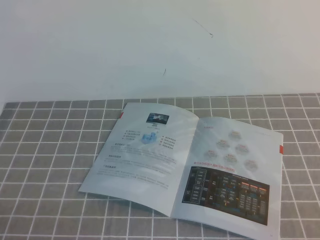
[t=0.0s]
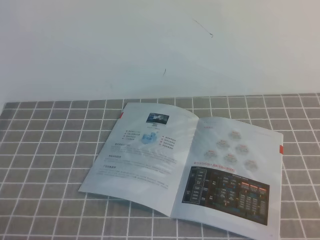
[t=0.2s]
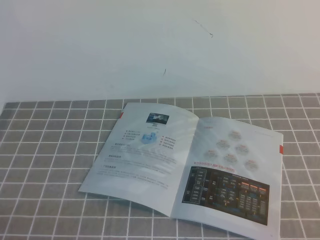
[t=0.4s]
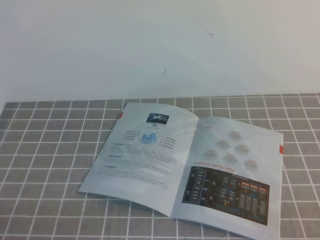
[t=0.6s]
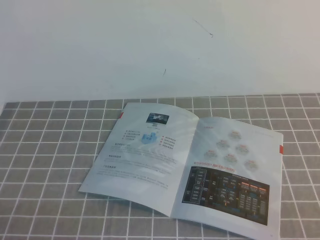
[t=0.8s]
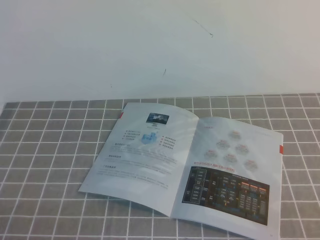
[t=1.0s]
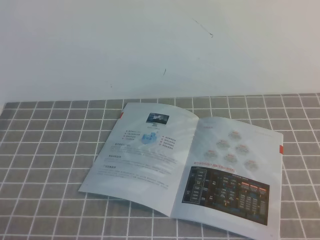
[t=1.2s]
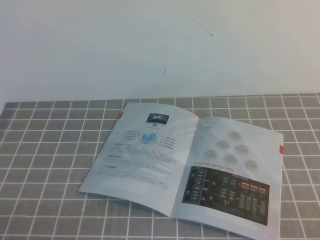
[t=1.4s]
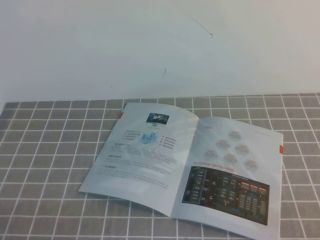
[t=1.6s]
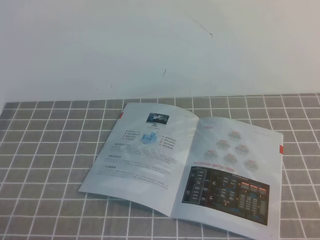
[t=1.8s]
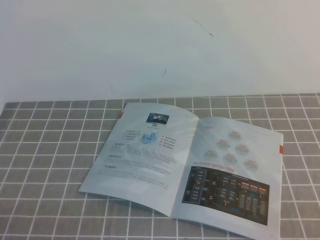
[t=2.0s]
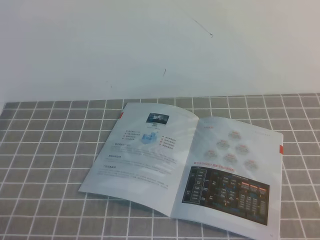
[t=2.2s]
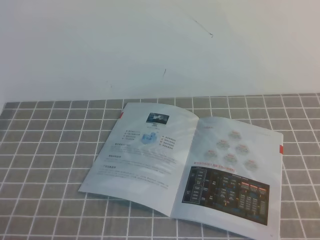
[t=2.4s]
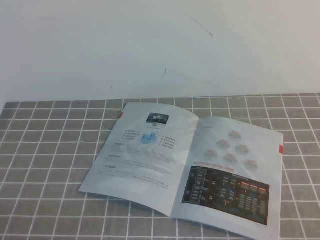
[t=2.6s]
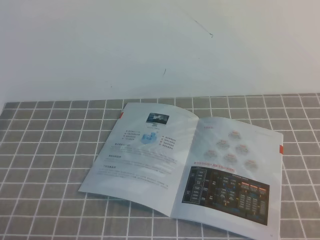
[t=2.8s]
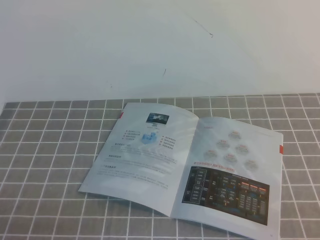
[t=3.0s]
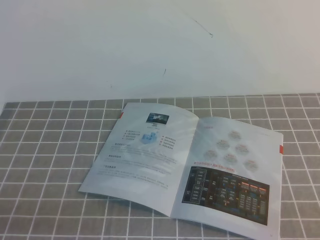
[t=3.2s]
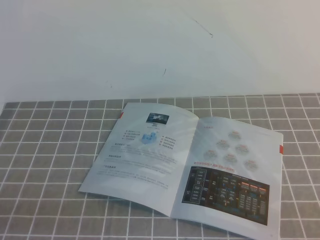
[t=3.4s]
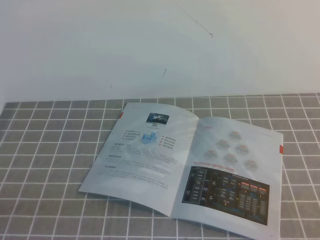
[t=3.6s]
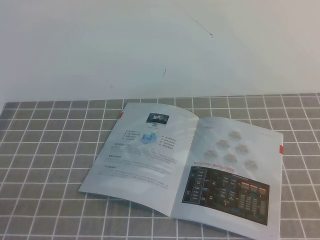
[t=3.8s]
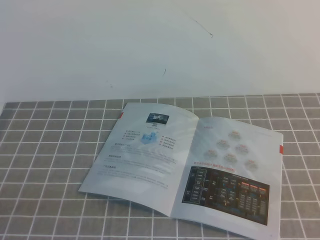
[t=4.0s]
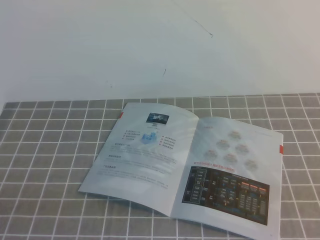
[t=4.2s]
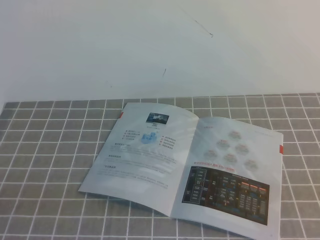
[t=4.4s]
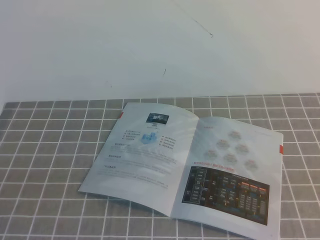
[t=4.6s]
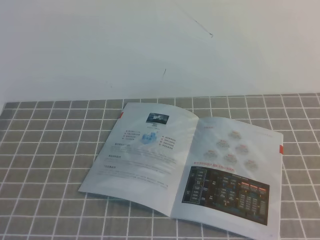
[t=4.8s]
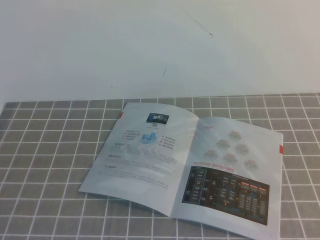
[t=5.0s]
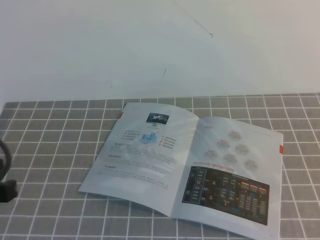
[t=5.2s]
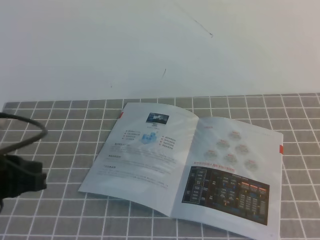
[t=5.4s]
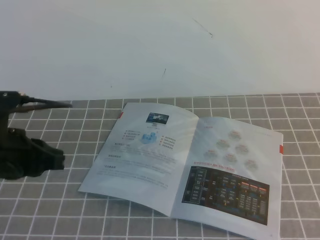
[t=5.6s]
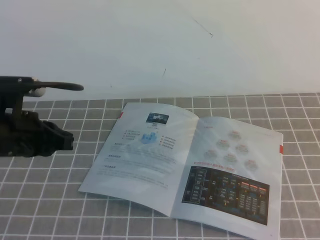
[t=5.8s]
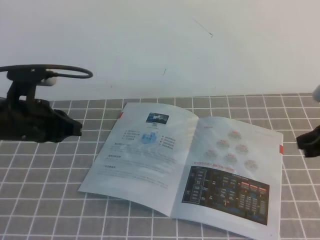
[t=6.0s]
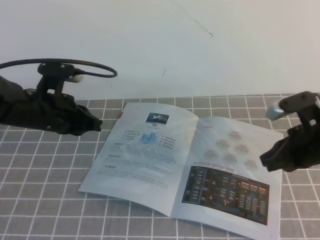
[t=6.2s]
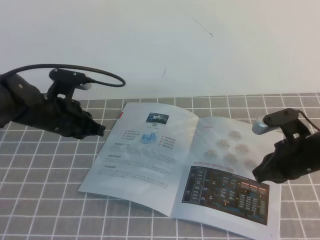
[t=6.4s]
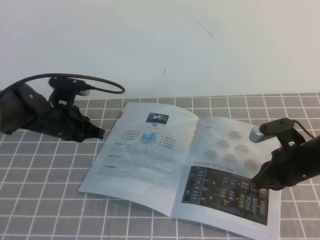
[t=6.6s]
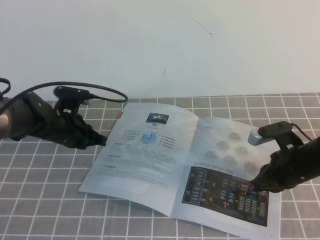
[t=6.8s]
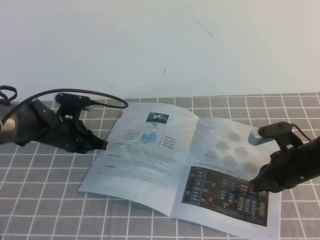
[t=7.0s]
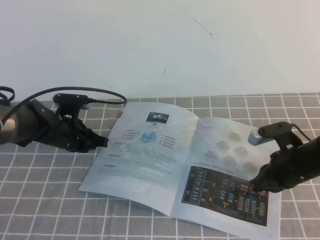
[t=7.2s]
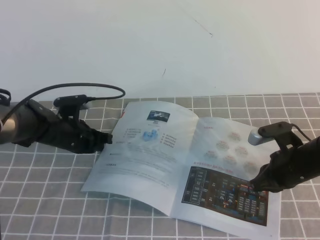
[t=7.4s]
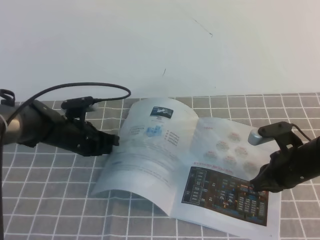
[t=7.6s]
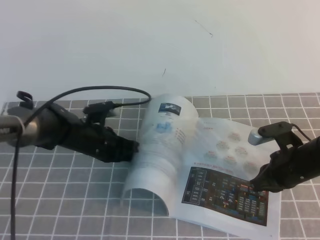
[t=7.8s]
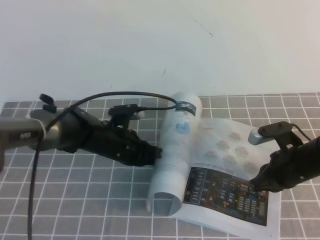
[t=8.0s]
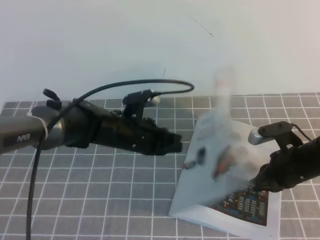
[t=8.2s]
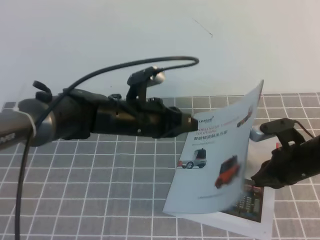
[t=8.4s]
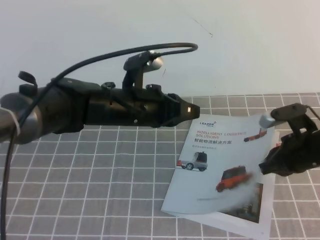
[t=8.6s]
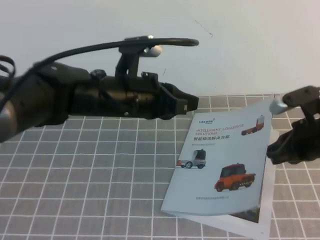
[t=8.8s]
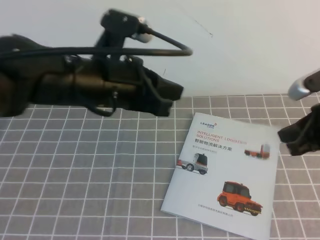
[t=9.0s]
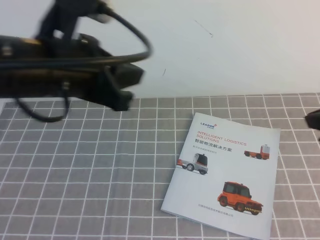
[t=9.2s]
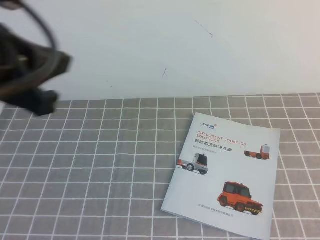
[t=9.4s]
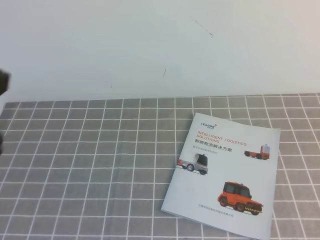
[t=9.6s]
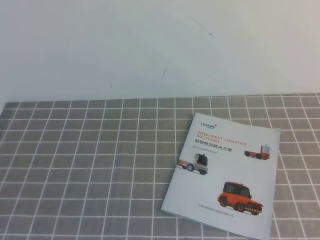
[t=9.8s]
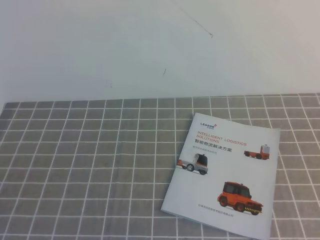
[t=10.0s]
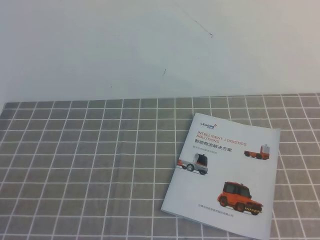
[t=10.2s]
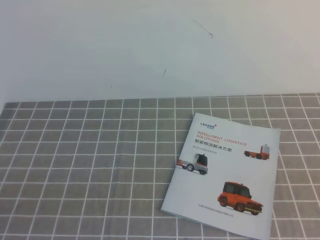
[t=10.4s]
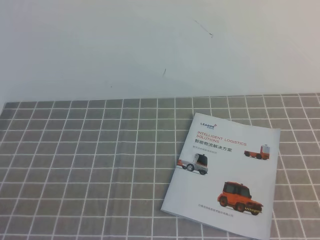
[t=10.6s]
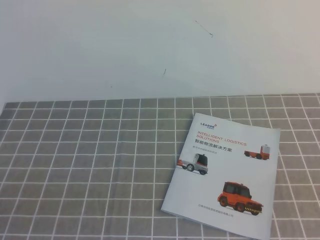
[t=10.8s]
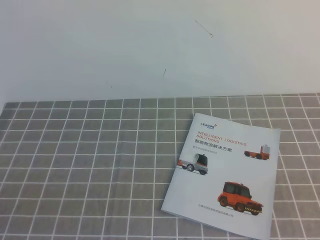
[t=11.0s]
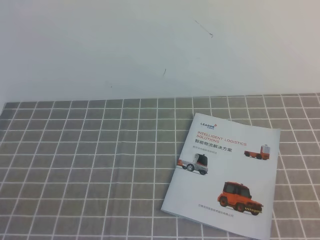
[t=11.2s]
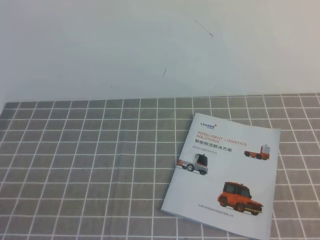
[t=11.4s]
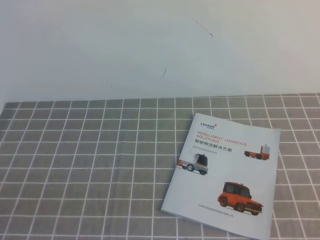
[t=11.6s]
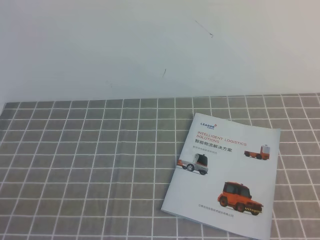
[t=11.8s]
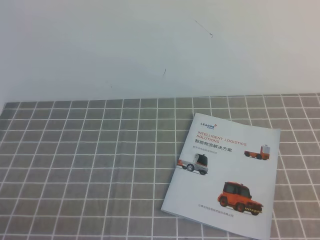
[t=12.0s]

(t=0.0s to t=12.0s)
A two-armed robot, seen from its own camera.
Task of the whole recording: on the grey tablecloth, hold the book with one hand and close it with the other.
t=0.0s - t=1.6s: The two grippers keep their place.
t=4.4s - t=6.0s: The two grippers go some 25 cm forward.
t=6.0s - t=7.6s: The right gripper travels downward and to the left by some 15 cm, while the left gripper is displaced downward and forward by some 15 cm.
t=7.6s - t=9.0s: The right gripper goes roughly 15 cm upward, while the left gripper shifts roughly 25 cm upward, backward and to the right.
t=9.0s - t=10.4s: The right gripper is displaced backward by roughly 25 cm; the left gripper heads backward and to the left, covering roughly 30 cm.

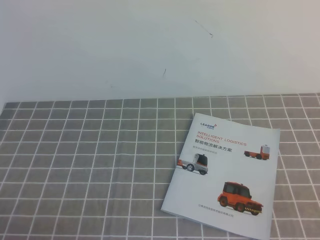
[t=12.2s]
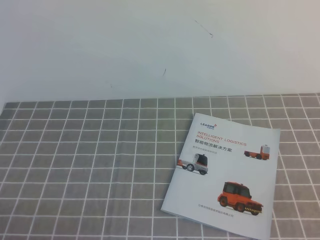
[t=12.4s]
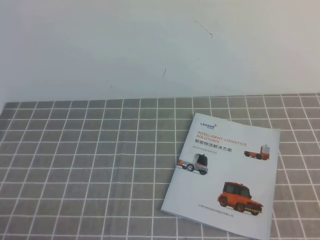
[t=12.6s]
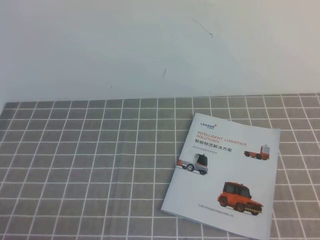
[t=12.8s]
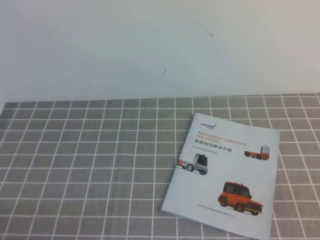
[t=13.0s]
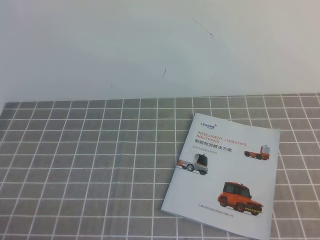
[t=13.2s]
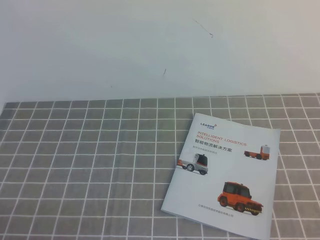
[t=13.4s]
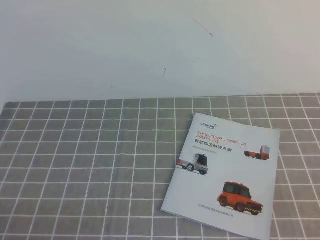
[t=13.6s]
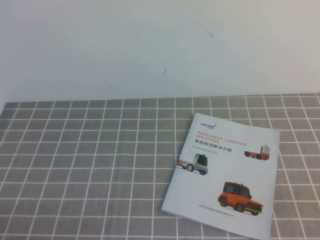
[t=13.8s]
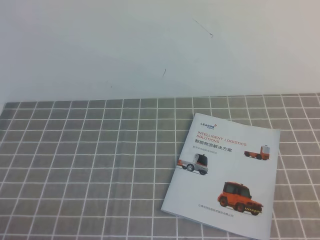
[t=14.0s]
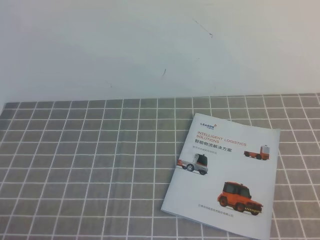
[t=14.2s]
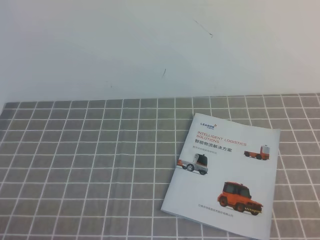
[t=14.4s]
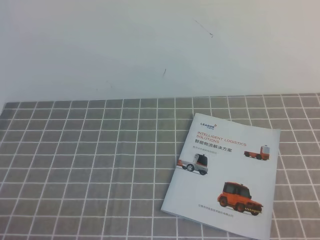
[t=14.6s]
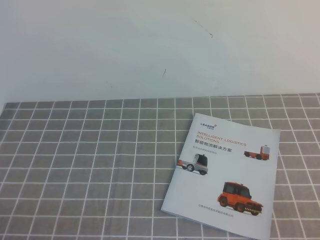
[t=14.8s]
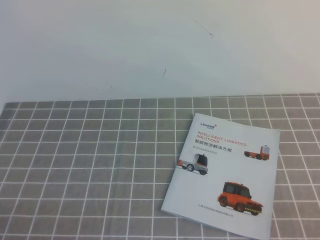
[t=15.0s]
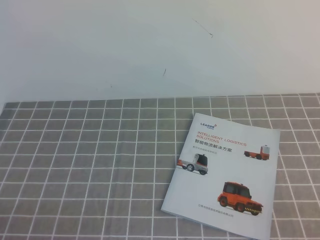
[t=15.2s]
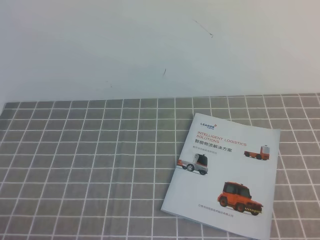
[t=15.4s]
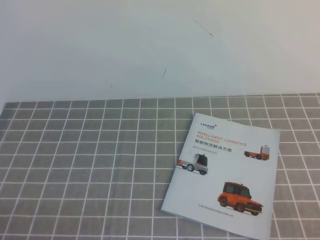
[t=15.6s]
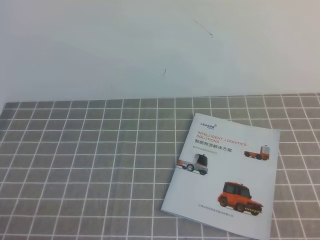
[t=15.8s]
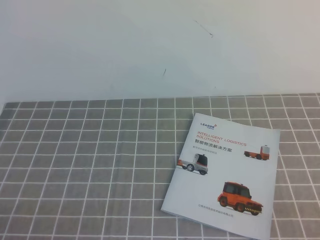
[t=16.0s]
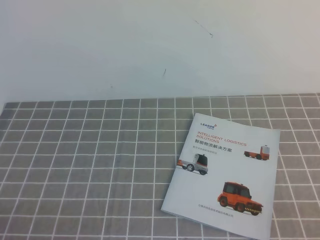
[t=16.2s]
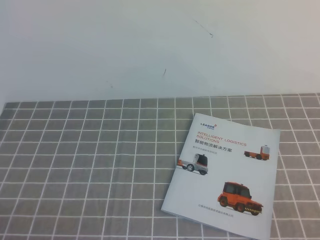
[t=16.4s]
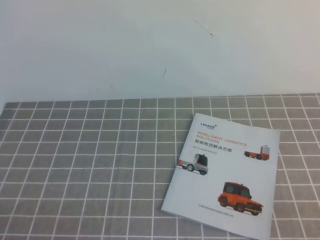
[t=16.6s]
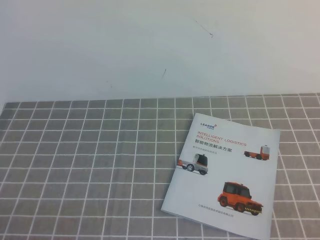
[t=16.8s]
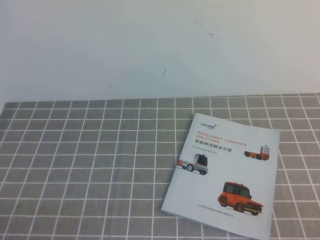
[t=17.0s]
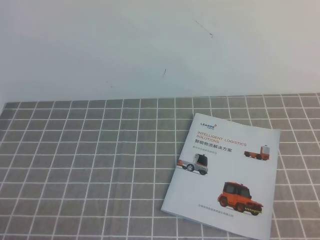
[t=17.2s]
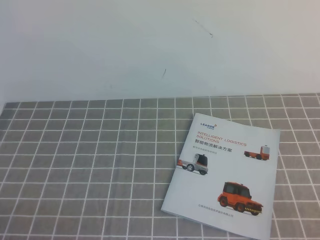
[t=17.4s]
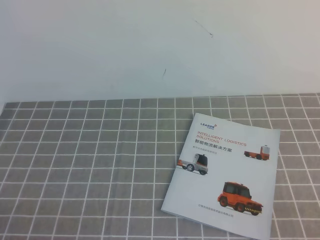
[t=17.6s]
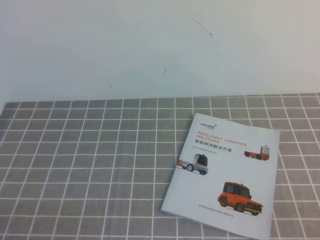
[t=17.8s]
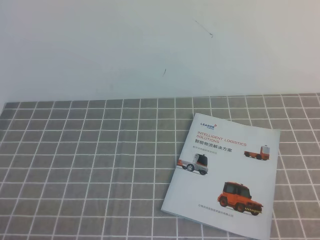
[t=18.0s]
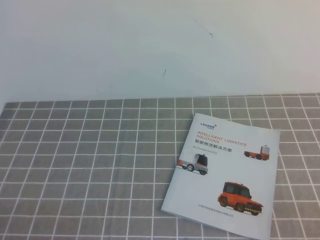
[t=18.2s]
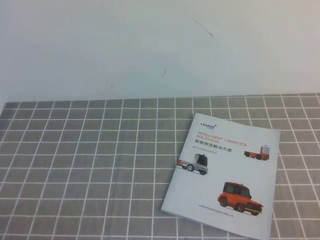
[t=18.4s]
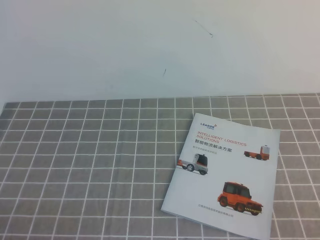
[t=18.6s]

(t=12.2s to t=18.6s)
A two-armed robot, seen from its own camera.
Task of the whole recording: on the grey tablecloth, hold the book with one hand and close it with the other.
t=15.4s - t=18.6s: Both grippers stay about where they are.
